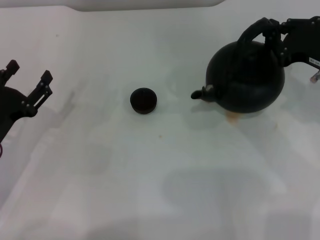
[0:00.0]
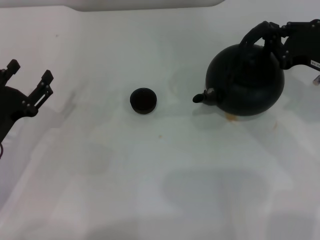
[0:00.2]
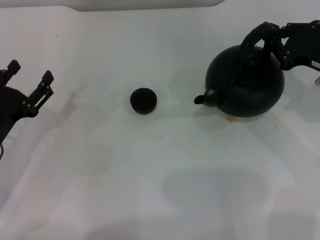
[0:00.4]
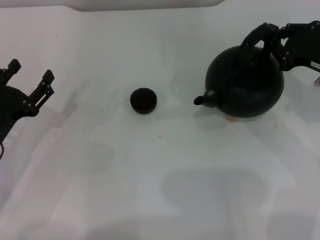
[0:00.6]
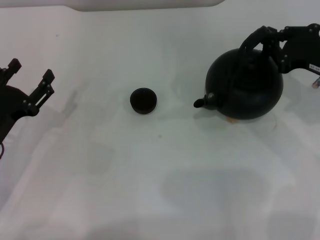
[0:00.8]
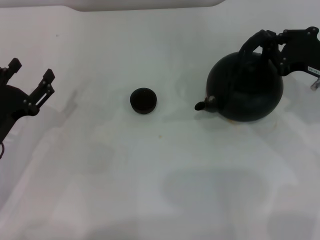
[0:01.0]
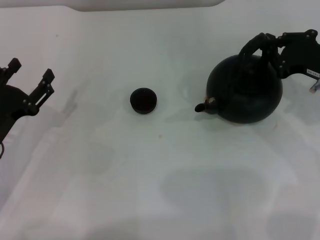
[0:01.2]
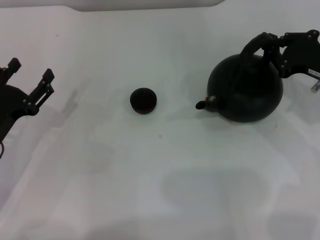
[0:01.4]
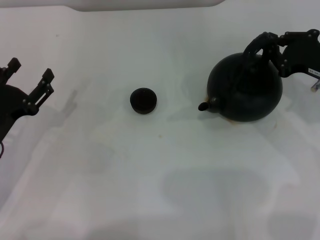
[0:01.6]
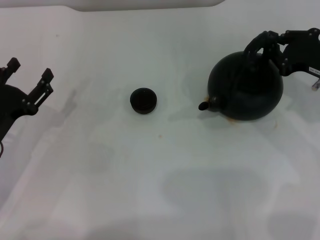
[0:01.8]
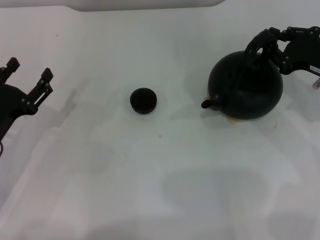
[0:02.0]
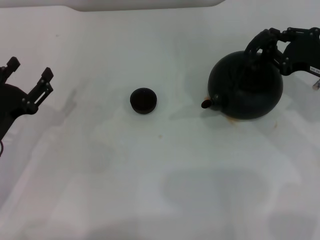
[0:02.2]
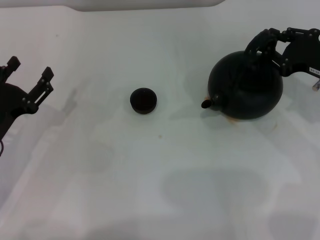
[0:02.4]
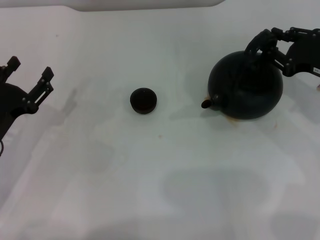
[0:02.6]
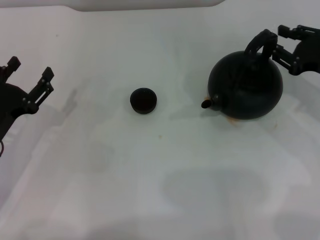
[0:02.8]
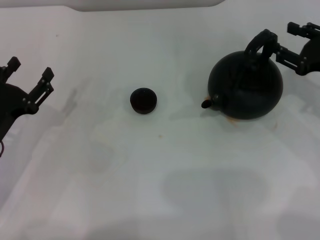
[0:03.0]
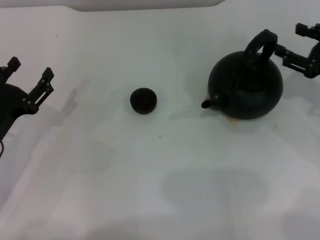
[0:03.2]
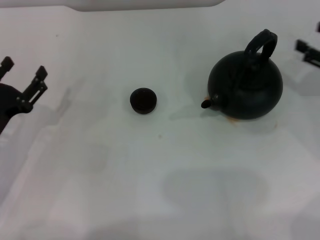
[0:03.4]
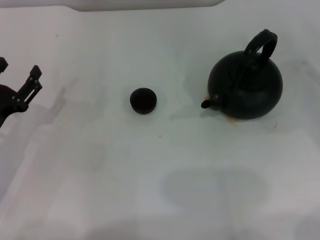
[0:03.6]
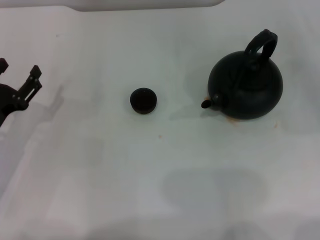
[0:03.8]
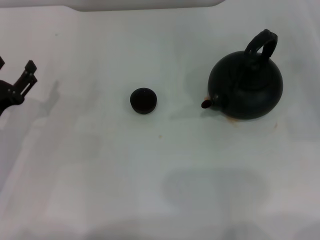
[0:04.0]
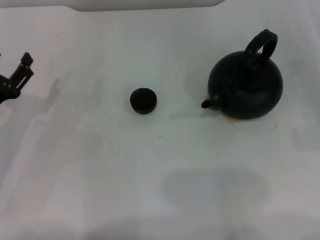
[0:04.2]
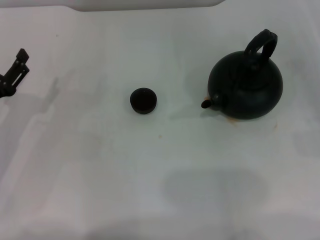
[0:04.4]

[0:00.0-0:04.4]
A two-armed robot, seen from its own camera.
Task of the whole recording: Grasp the handle of the teapot with one hand and pour tea into the teacup.
Step, 0:00.0 to 0:03.2: Put down the teapot with the right gripper.
0:00.0 to 0:01.4: The grippers stay close to where they were, moving slightly.
0:01.4 to 0:03.0: The right gripper opens up.
0:03.0 to 0:04.4: The right gripper travels to the right and backward by approximately 10 cm.

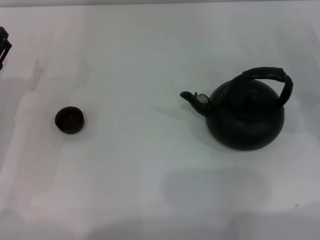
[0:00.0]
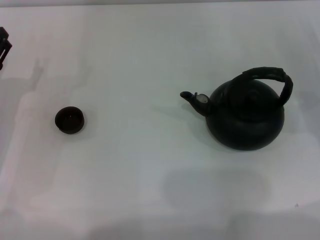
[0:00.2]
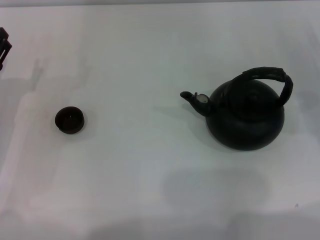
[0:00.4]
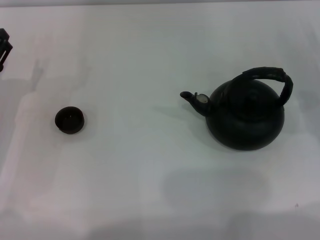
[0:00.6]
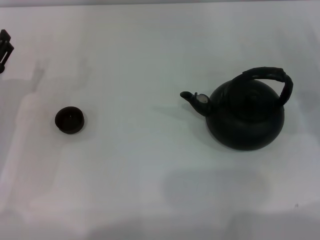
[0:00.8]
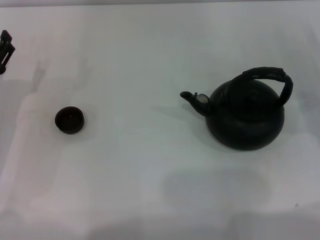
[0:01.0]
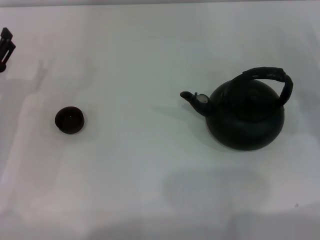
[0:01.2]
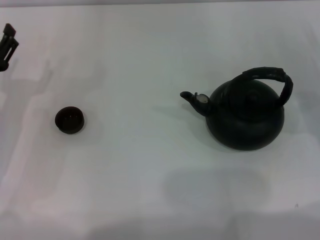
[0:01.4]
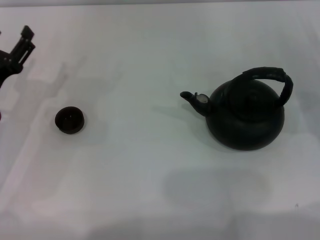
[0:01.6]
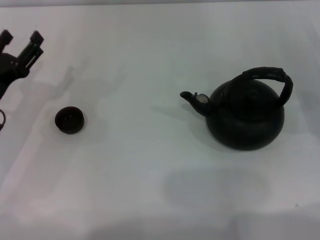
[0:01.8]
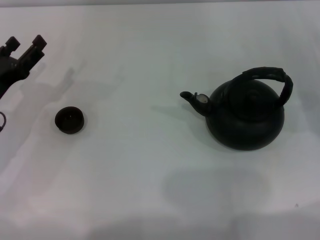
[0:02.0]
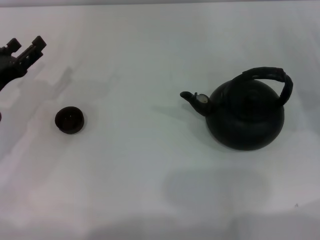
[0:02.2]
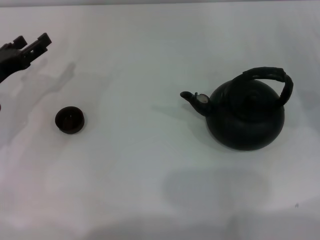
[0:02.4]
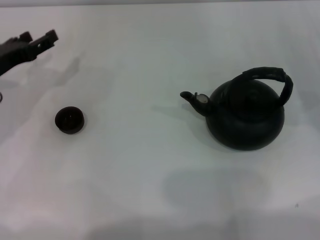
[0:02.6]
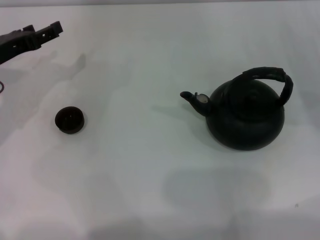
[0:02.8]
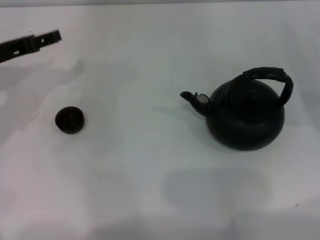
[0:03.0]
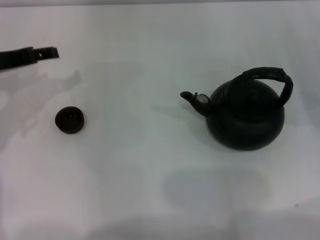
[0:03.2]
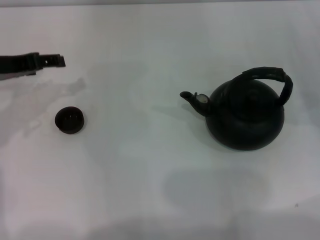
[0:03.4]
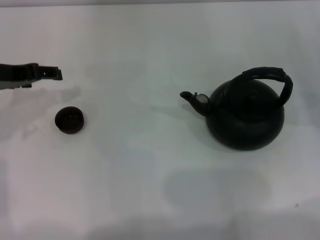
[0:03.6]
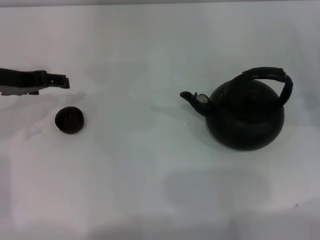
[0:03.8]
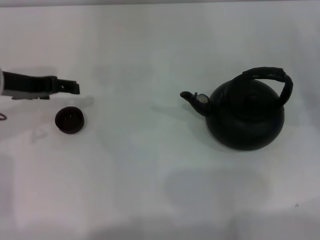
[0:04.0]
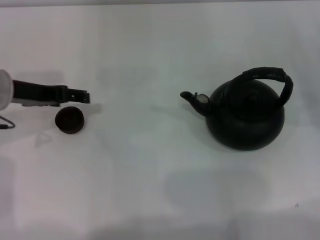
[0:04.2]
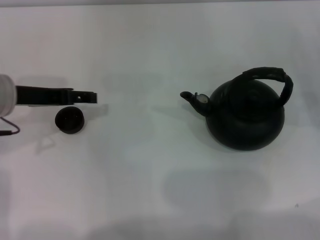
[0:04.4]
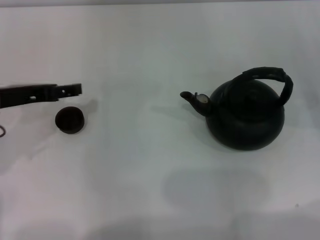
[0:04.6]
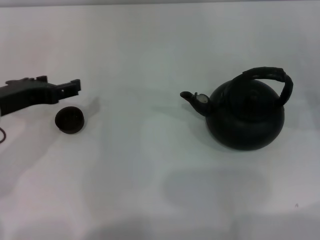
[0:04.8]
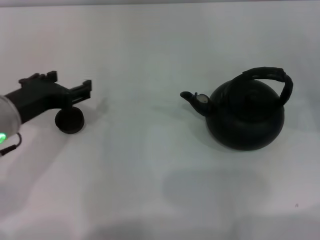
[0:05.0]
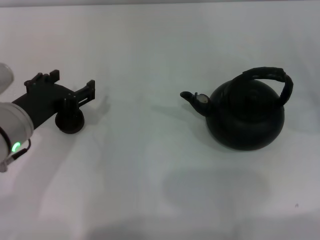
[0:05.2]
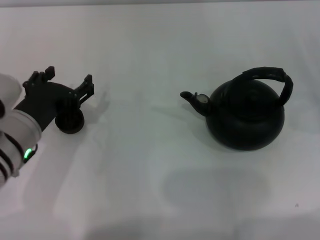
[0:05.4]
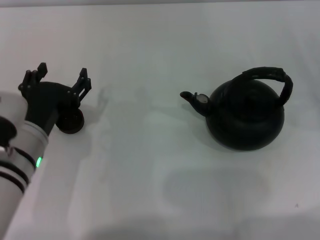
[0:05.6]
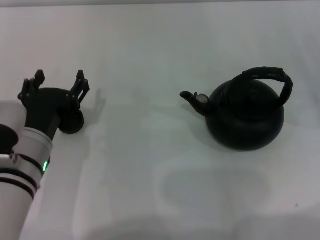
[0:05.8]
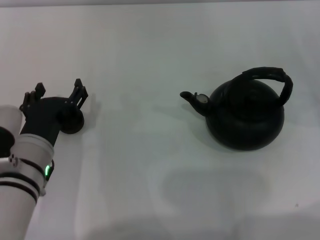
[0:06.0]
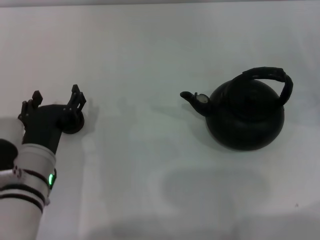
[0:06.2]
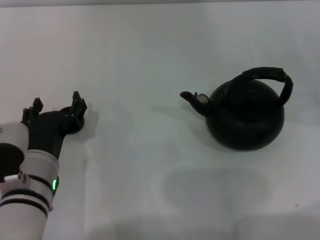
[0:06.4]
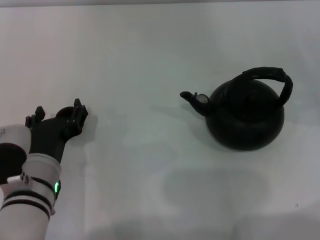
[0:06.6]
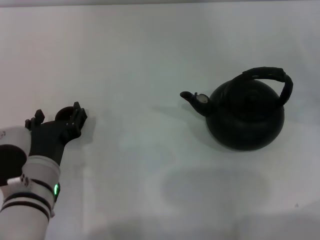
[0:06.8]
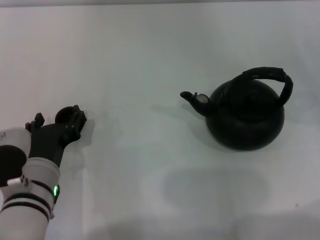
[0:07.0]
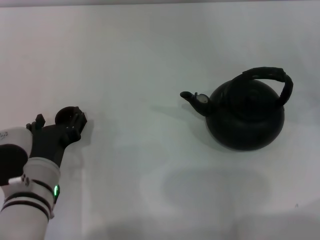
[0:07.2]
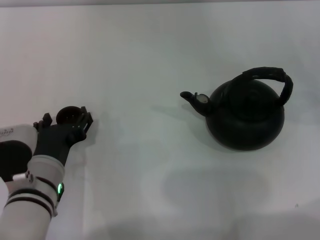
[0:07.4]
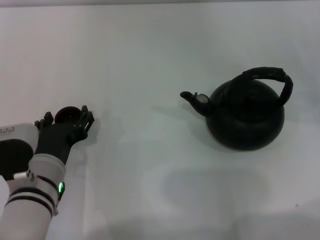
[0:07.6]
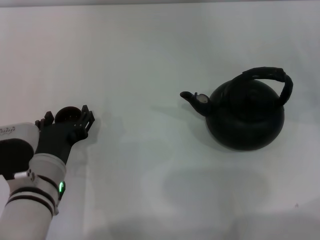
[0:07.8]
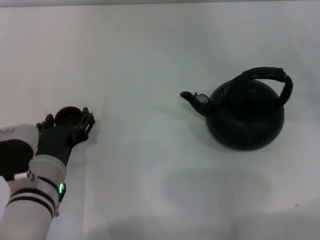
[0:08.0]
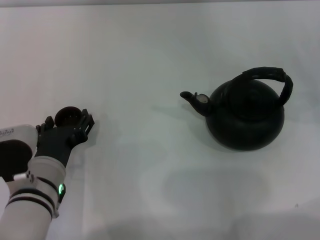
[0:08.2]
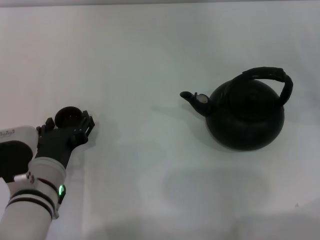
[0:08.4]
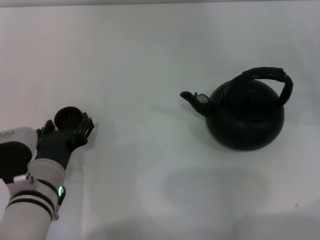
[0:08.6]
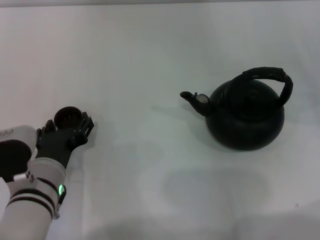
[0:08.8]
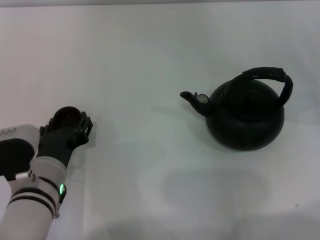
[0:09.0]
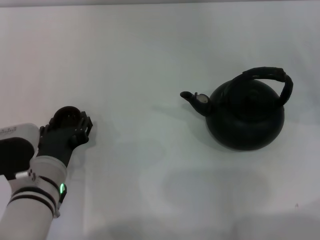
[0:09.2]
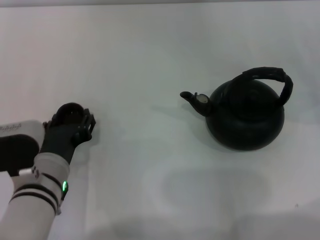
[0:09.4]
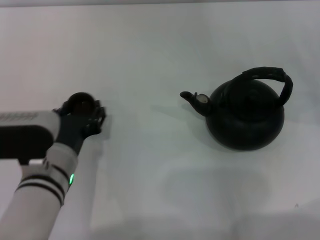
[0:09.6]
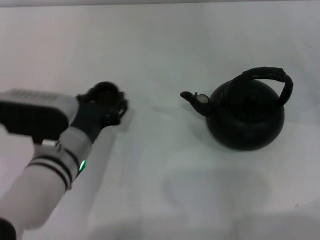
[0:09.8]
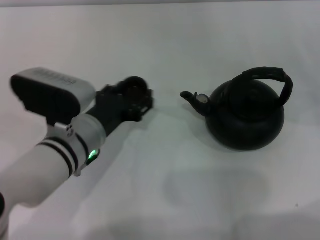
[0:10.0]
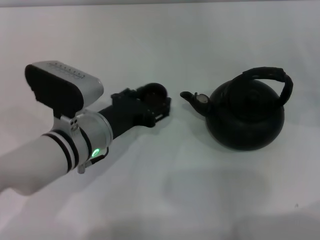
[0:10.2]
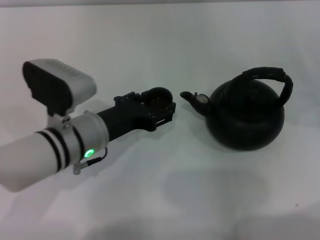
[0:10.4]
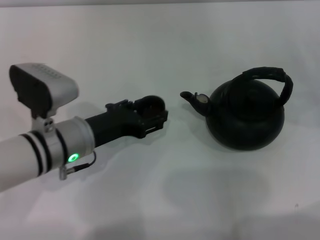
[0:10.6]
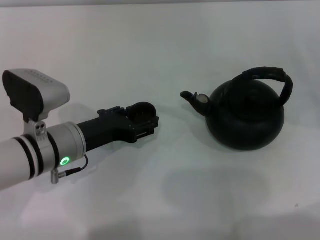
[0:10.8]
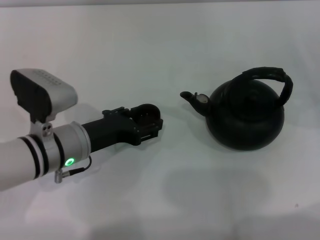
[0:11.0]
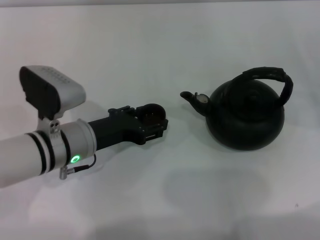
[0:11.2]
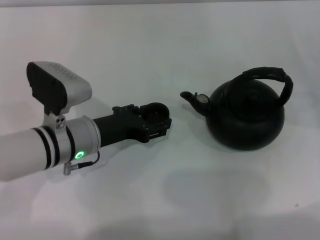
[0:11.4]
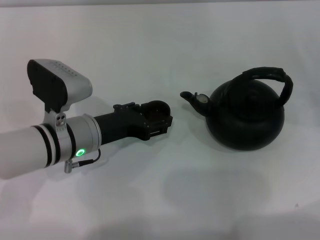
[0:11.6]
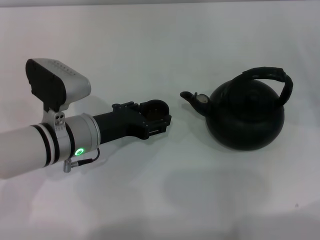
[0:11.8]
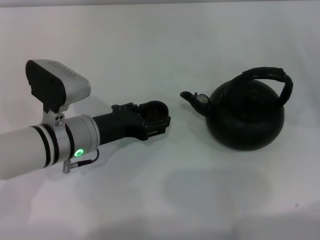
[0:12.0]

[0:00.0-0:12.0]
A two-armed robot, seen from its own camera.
Task of the whole recording: Grasp the handle of the teapot with one hand and pour tea into the teacup.
Step, 0:00.0 to 0:09.4: Pick up the teacup with the left gripper.
0:00.0 to 0:01.6: The grippers stay close to where they were, moving slightly.
0:01.6 to 0:03.0: The left gripper shifts approximately 10 cm upward and forward.
0:04.4 to 0:06.0: The left gripper moves backward, downward and to the right, approximately 15 cm.
0:06.0 to 0:07.6: The grippers move only a little.
0:07.6 to 0:09.0: The left gripper closes its fingers.
0:09.0 to 0:10.4: The left gripper shifts roughly 5 cm forward, and closes up.
0:10.4 to 0:12.0: The grippers move only a little.

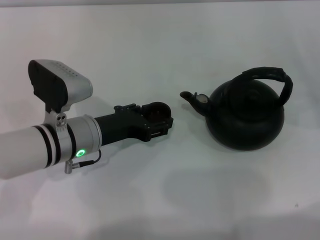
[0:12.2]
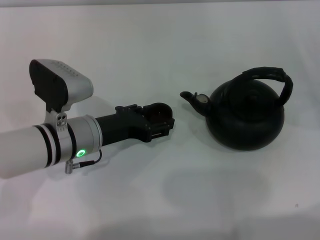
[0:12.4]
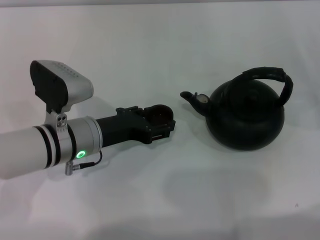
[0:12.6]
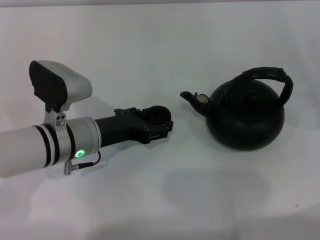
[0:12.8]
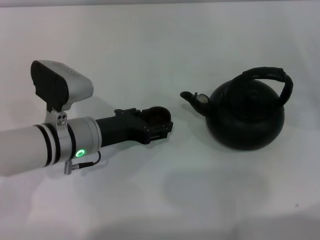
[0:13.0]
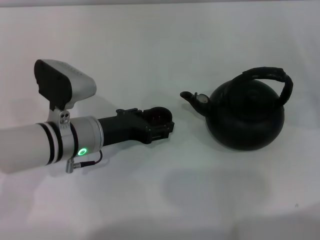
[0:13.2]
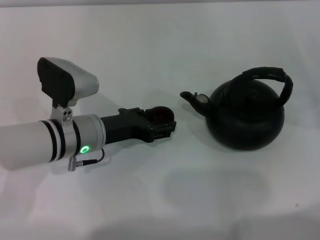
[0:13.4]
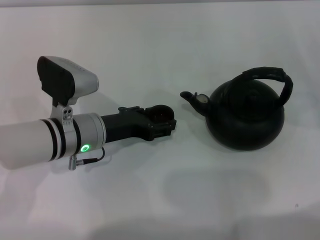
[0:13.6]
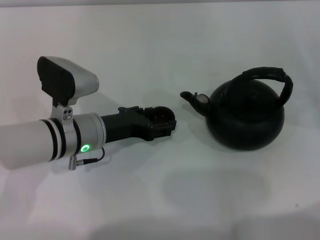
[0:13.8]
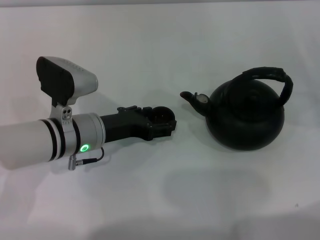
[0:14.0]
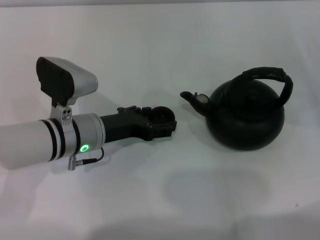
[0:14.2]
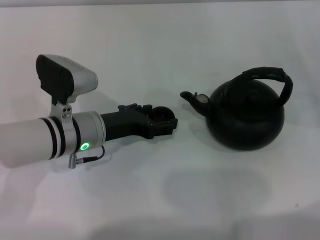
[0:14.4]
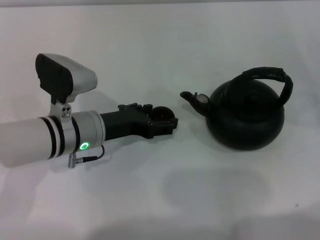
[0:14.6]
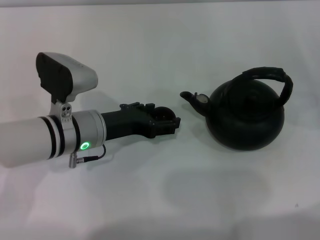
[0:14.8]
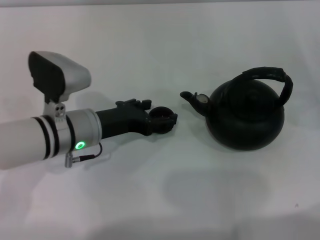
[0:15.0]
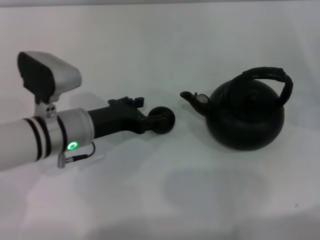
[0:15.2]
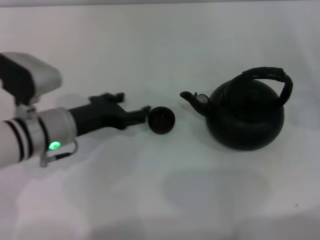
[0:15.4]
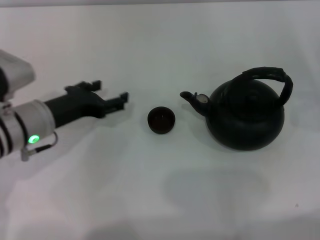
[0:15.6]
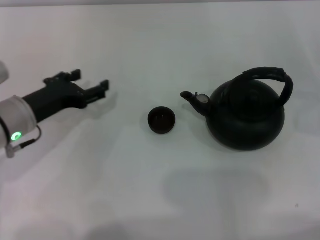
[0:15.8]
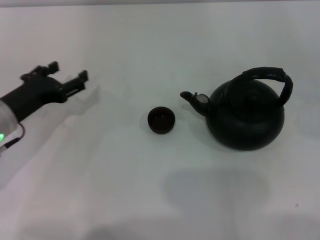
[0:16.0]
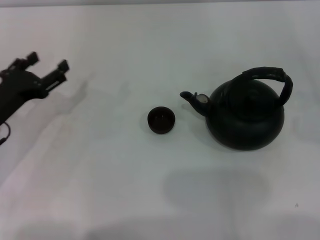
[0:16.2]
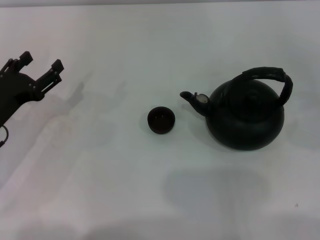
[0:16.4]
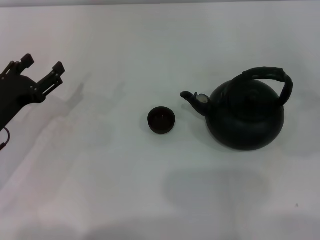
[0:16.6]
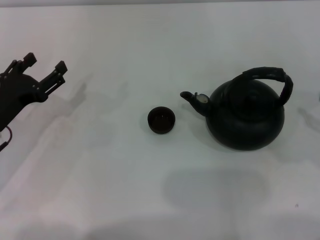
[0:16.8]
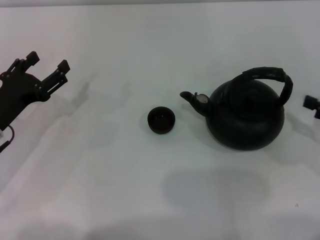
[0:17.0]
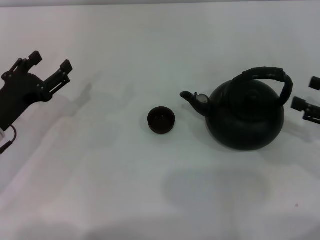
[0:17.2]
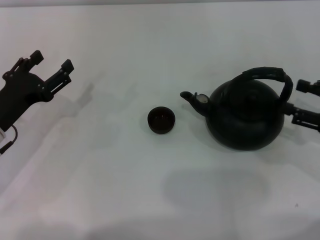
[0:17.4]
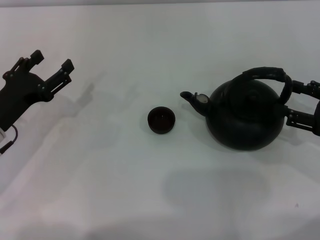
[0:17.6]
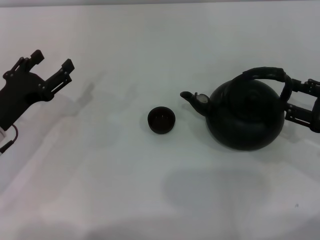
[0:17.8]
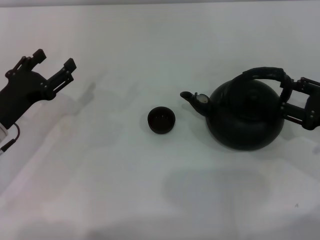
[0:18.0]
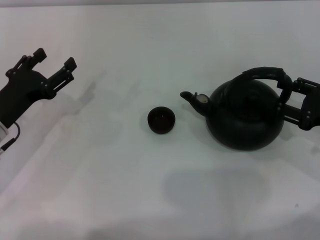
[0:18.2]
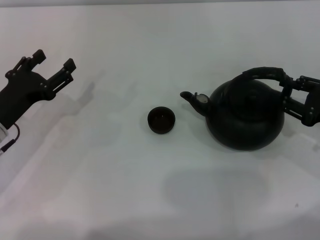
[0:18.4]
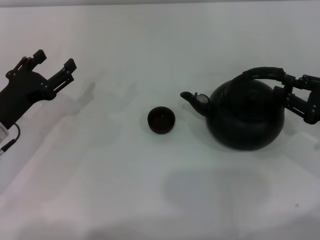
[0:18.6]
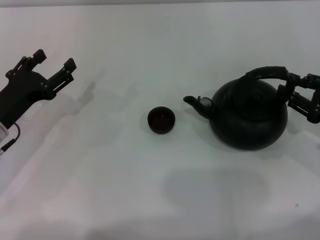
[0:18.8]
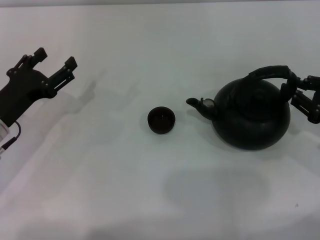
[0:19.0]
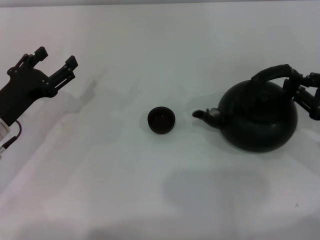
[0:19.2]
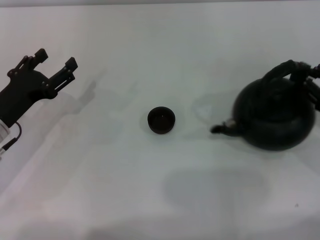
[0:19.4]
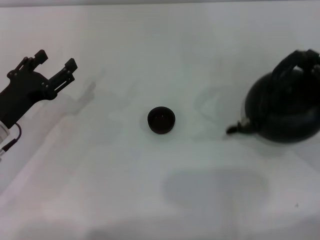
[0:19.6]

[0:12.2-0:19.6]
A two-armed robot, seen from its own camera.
Task of the whole recording: Grasp the handle of the teapot with one hand and pour tea into the teacup.
Step, 0:12.2 to 0:15.4: Place the teacup in the center of view with the left gripper.
0:12.2 to 0:13.6: Both grippers stay put.
0:13.6 to 0:15.2: The left gripper opens its fingers.
0:15.2 to 0:16.6: The right gripper moves upward and backward, approximately 10 cm. Meanwhile the left gripper heads to the left, covering roughly 10 cm.
0:16.6 to 0:18.2: The right gripper is displaced to the left by about 10 cm.
0:18.2 to 0:19.6: The right gripper closes its fingers.
